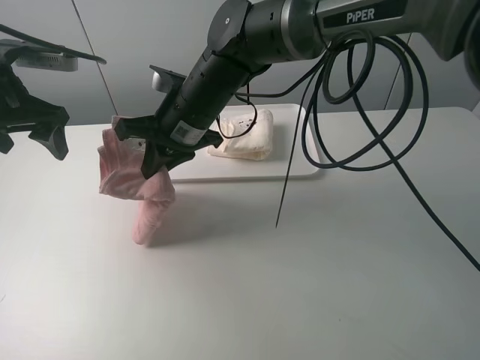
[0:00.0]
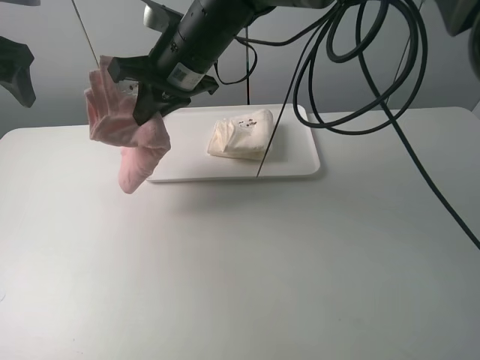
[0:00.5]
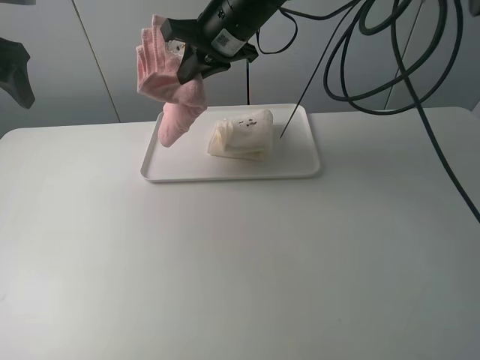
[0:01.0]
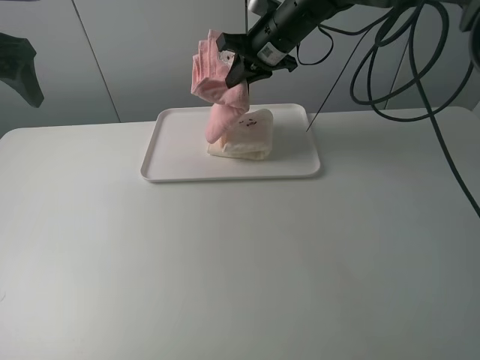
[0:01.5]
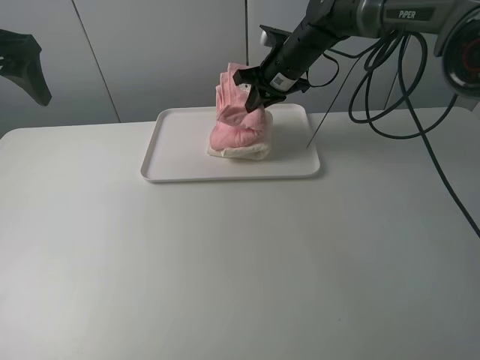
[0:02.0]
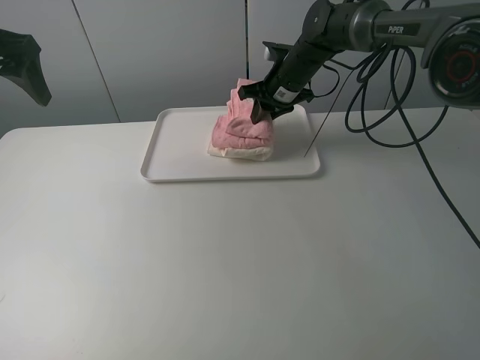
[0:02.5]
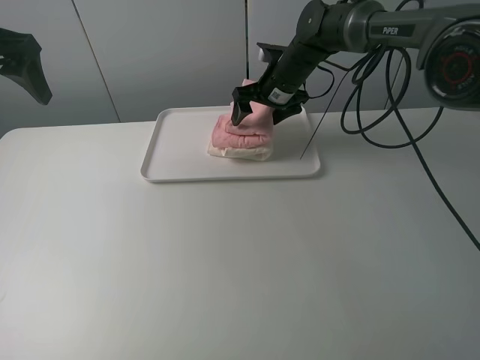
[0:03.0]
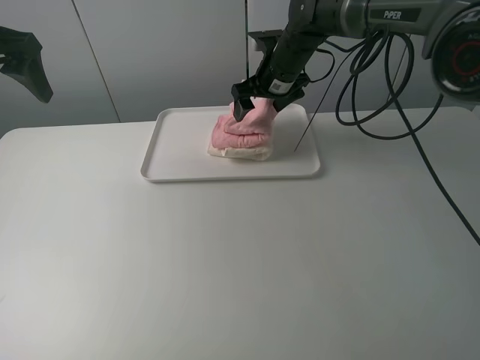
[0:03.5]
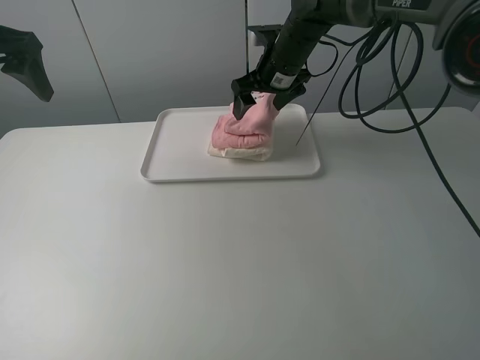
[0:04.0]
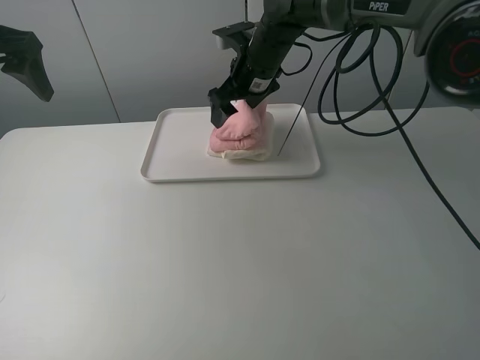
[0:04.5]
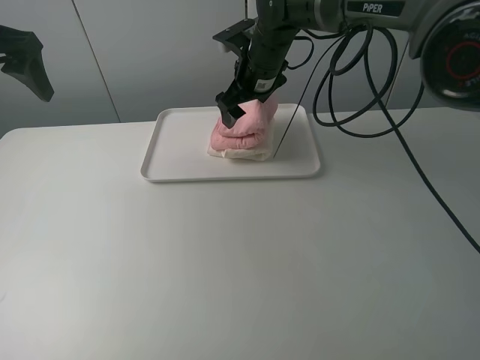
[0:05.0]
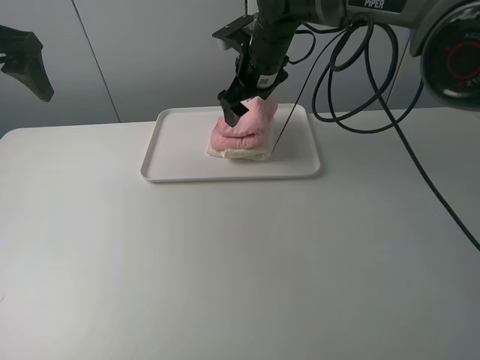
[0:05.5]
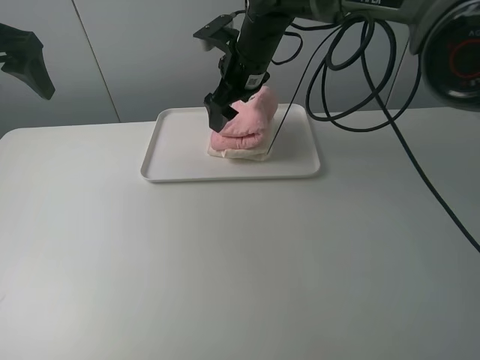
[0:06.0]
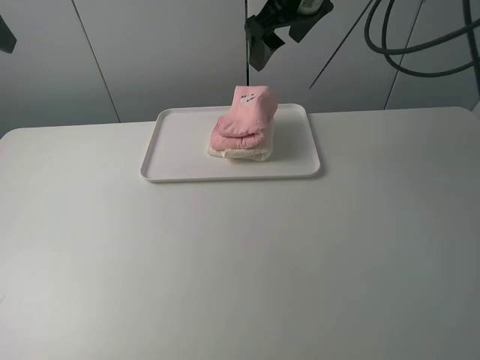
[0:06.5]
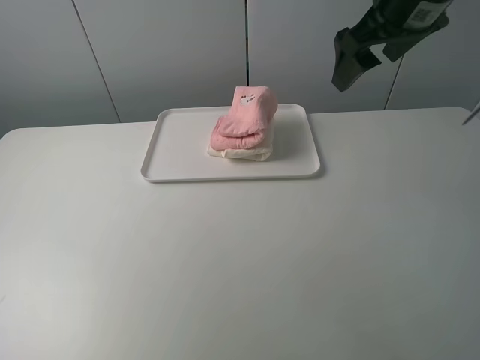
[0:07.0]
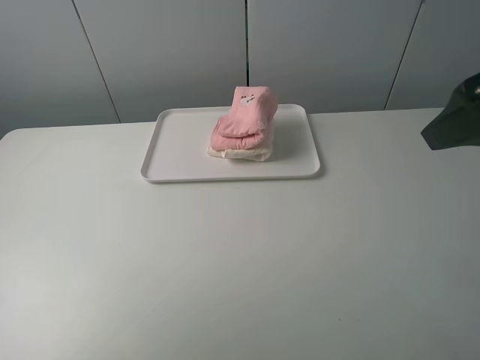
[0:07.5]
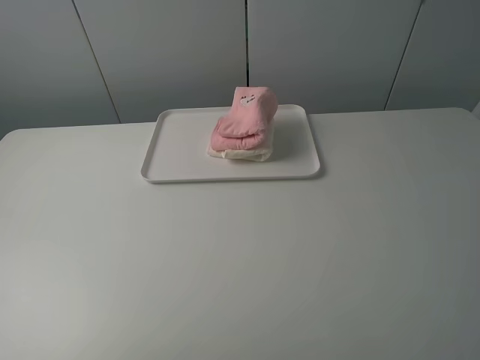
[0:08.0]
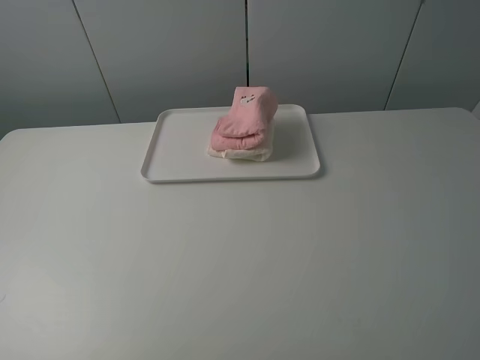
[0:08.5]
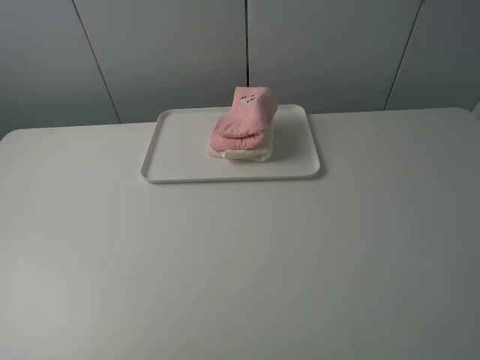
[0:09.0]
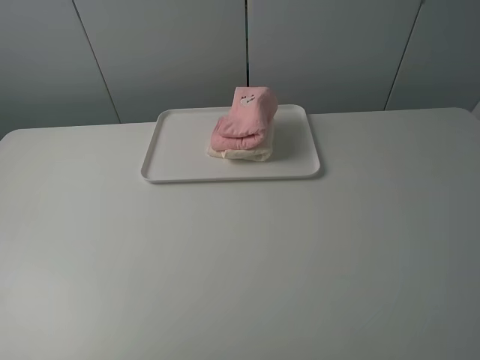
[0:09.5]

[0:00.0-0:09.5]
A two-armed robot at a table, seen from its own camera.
Task of the whole recording: fold one of the towels by two grippers and place it on the tray,then fold another towel by two grippers and place it on the folded towel.
Step, 0:00.0 to 0:02.5: Place the pink towel on the white towel with the right gripper.
0:00.0 to 0:02.0: The right gripper moves forward and to the right, about 20 cm. Meanwhile the left gripper shifts some 5 cm upward.
0:02.0 to 0:04.0: The right gripper opens up.
0:05.5 to 0:07.5: The right gripper heads backward, to the right and upward, covering roughly 40 cm; the left gripper heads backward, covering some 25 cm.
0:07.5 to 0:09.5: The left gripper travels backward and downward by roughly 10 cm, while the right gripper goes some 15 cm backward.

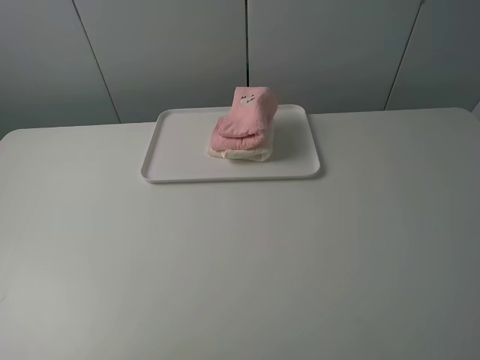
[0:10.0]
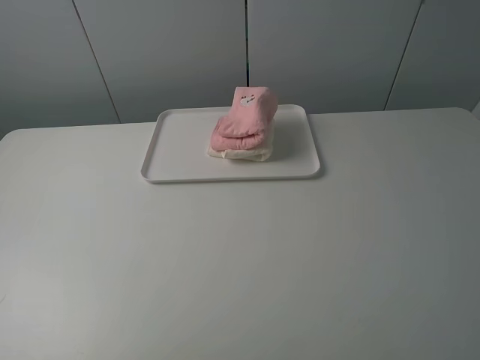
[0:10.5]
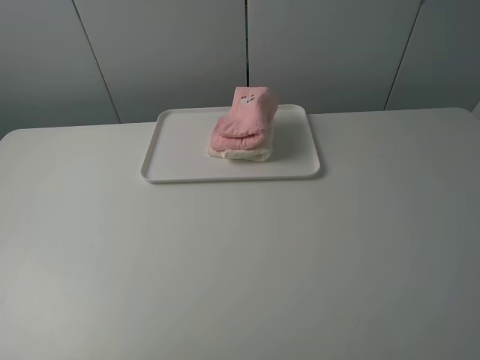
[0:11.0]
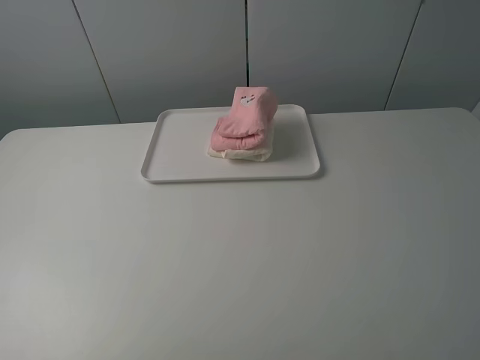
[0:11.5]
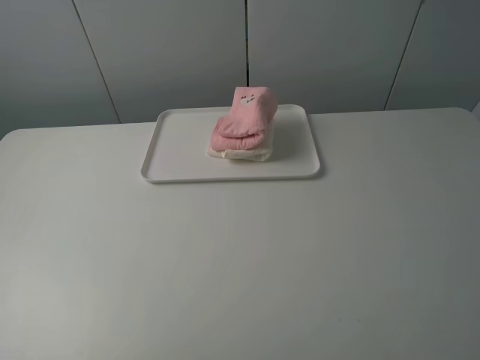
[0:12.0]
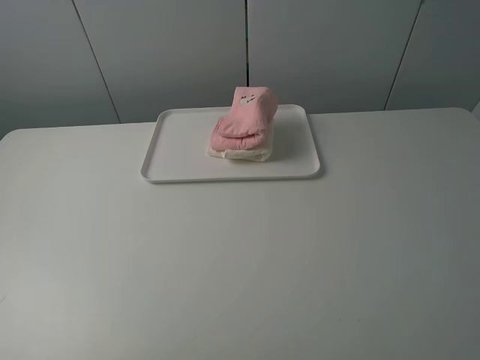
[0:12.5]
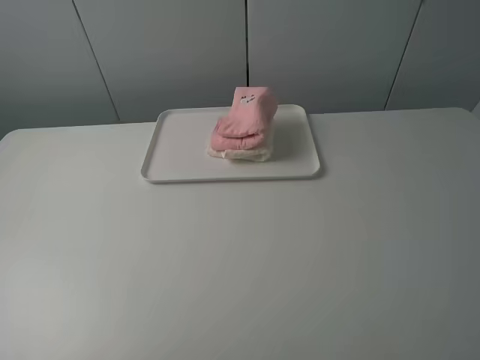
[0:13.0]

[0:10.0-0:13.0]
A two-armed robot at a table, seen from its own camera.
Task of the whole recording: fold one of the towels by two grippers and place it on the tray,then fold another towel by two grippers and place it on the folded towel.
0:10.0 to 0:13.0: Both grippers stay about where they are.
